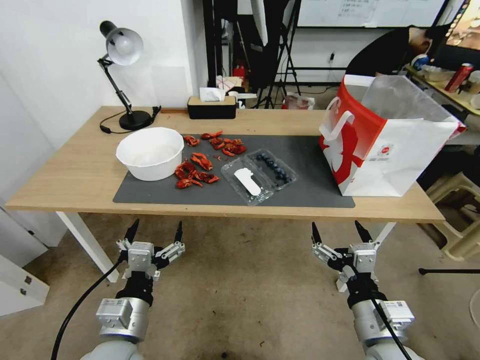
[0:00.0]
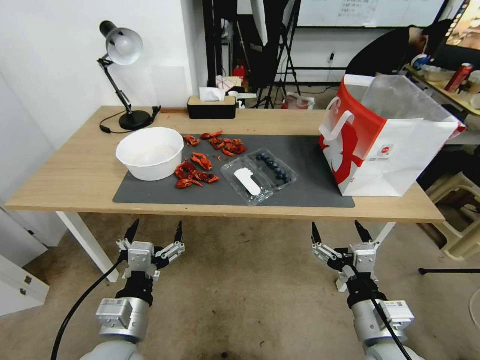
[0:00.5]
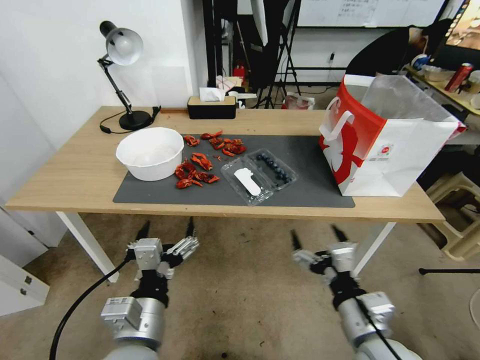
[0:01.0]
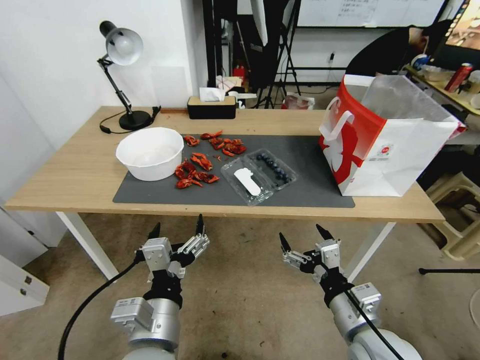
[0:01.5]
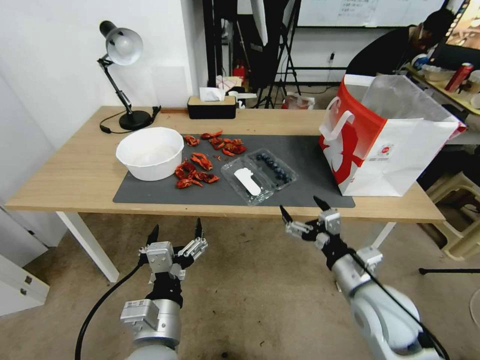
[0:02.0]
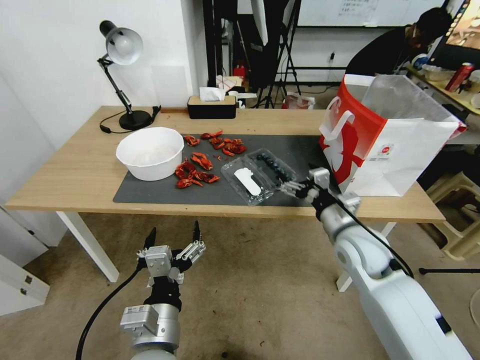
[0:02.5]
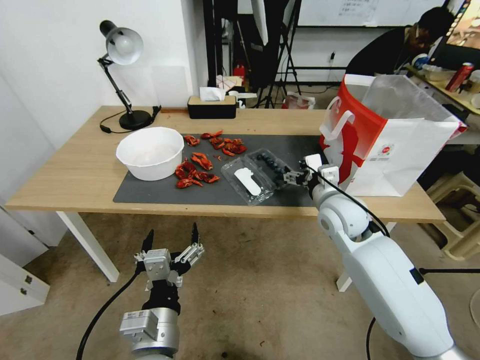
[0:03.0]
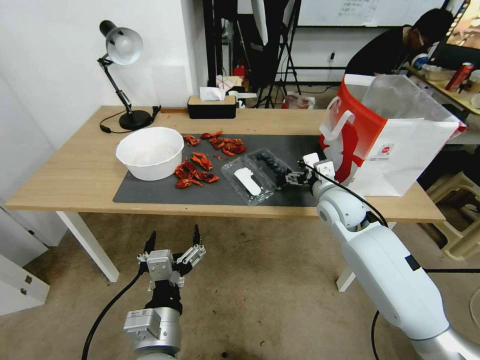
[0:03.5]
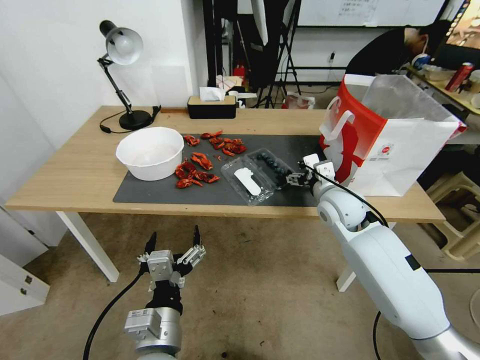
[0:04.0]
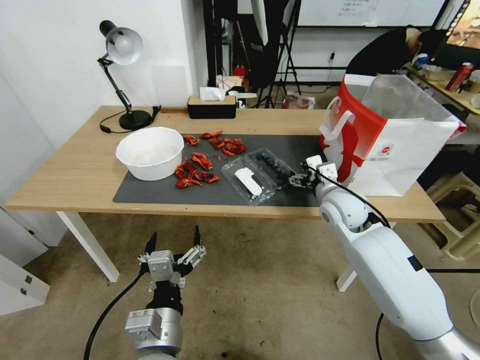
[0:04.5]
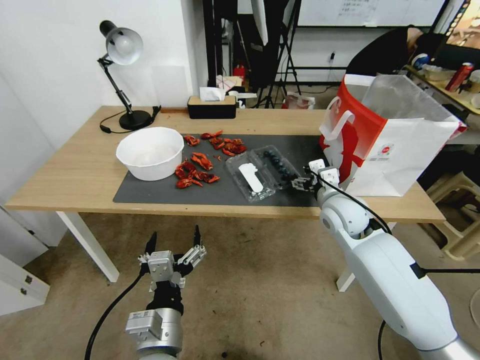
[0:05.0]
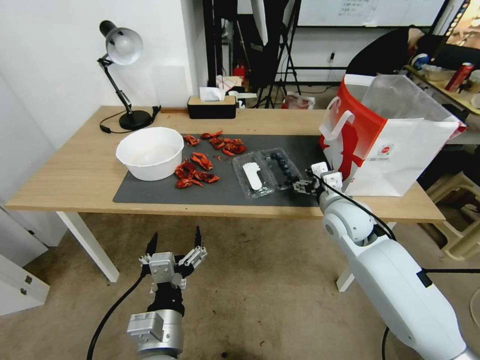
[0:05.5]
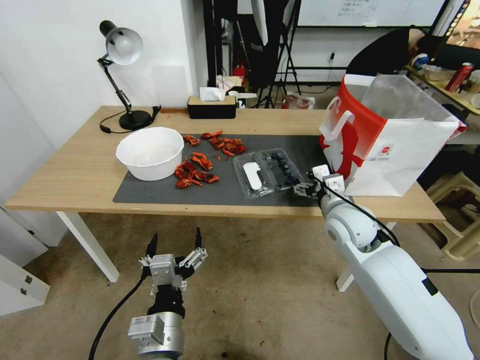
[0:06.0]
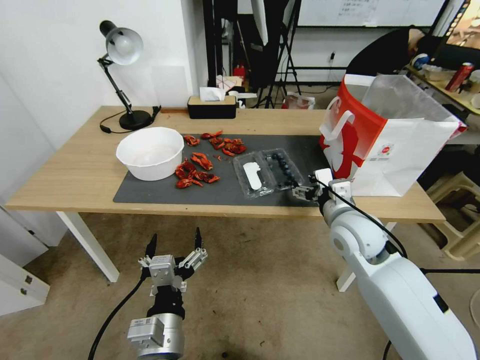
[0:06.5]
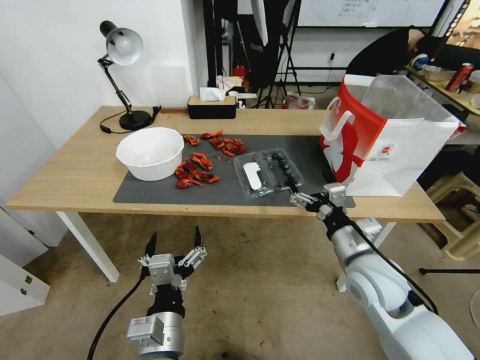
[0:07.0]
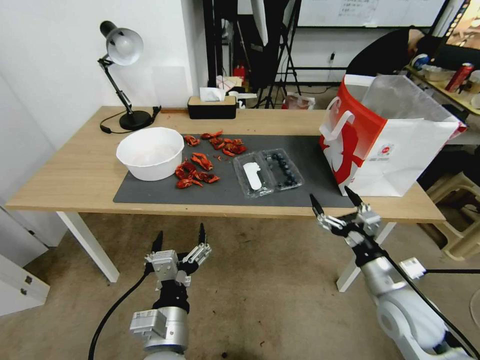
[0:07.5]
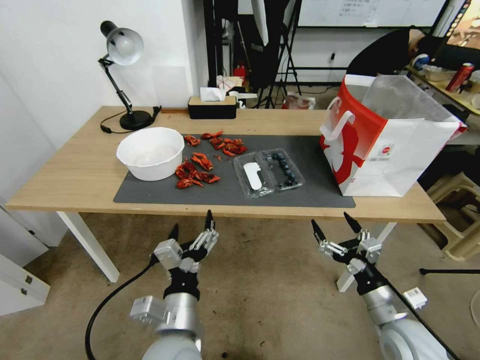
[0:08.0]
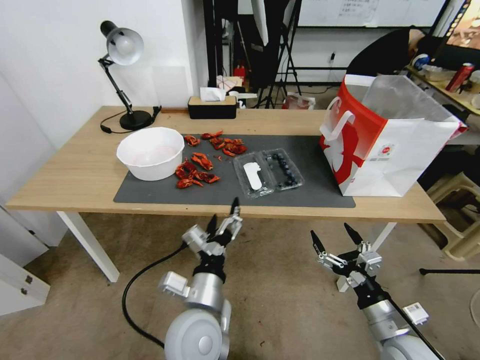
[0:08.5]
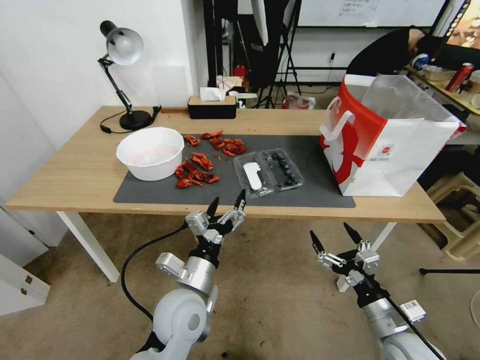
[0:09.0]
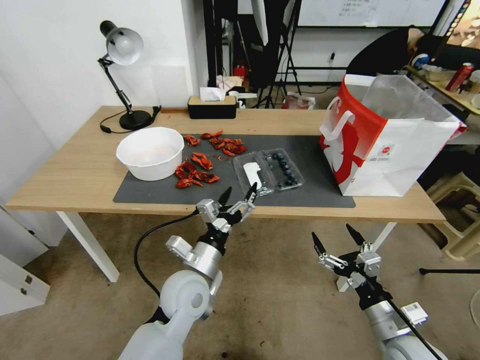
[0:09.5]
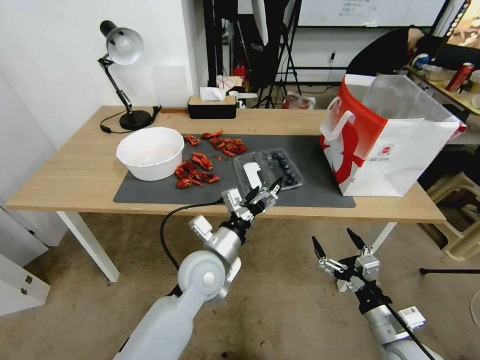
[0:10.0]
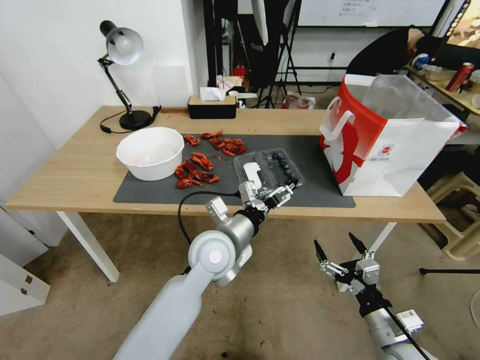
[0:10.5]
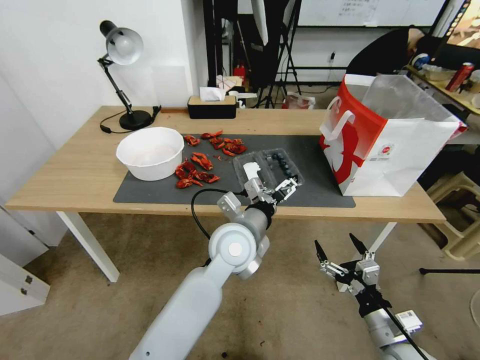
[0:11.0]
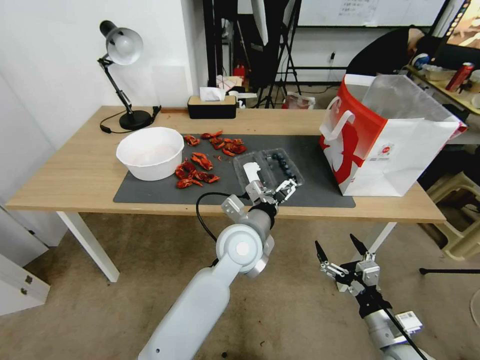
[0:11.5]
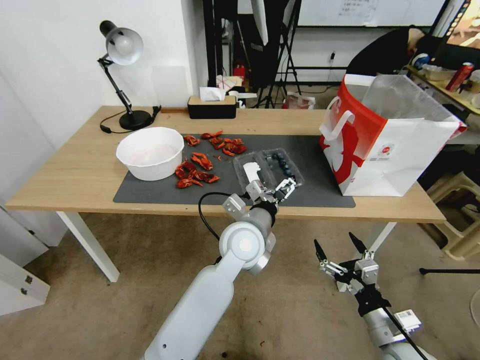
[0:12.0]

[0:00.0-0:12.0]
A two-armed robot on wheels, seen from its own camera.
Task of the whole recording: Close the takeout container lid, then place the container into the takeout bag.
0:02.0 to 0:04.0: The right gripper travels forward by roughly 20 cm.
0:04.0 to 0:06.0: The grippers stay close to where they were, moving slightly.
0:06.0 to 0:08.0: The right gripper moves backward, downward and to the right, roughly 25 cm.
0:08.0 to 0:10.0: The left gripper travels forward by about 15 cm.
0:10.0 to 0:12.0: The left gripper goes some 10 cm to the right.

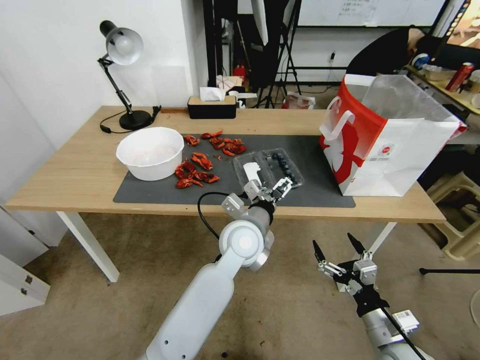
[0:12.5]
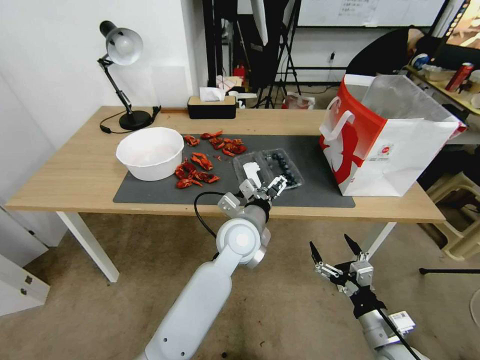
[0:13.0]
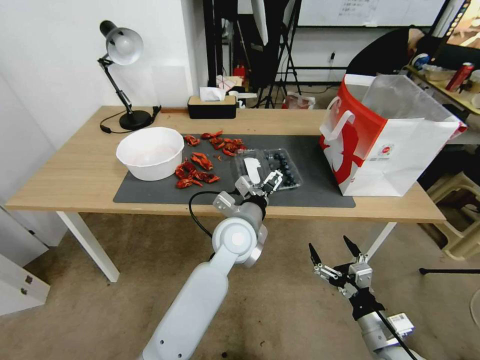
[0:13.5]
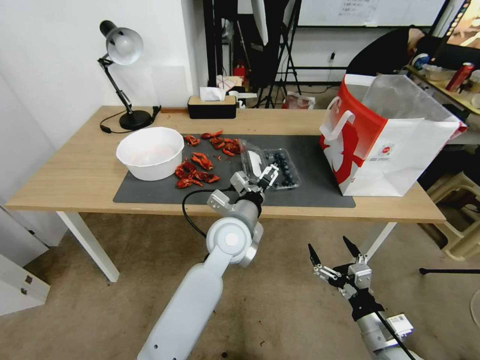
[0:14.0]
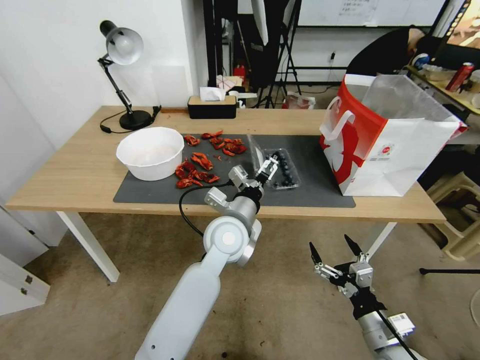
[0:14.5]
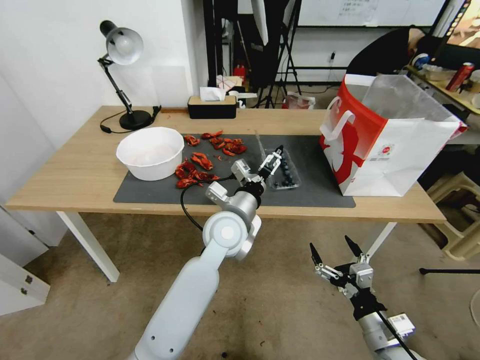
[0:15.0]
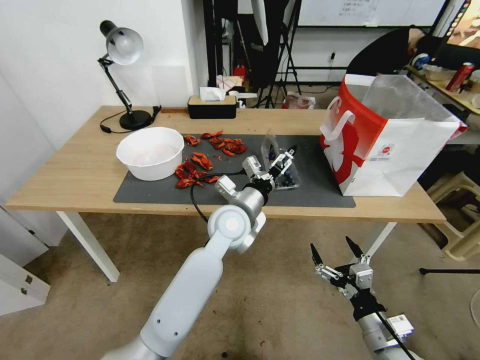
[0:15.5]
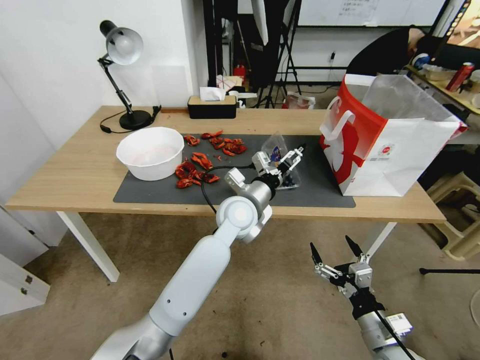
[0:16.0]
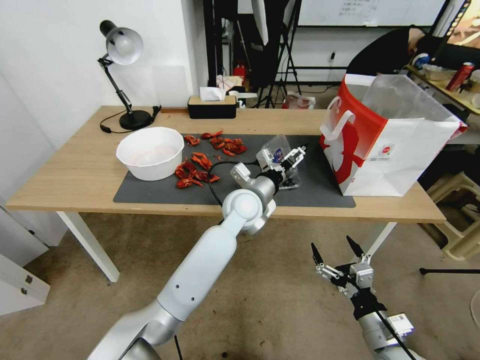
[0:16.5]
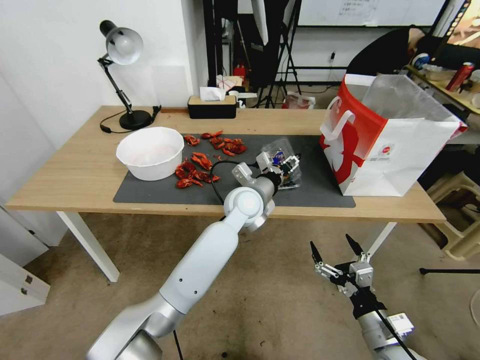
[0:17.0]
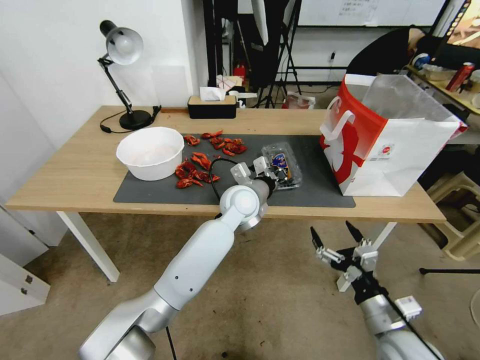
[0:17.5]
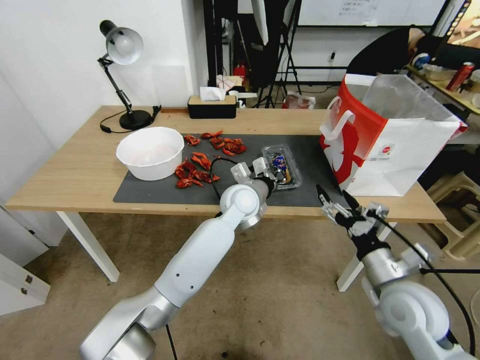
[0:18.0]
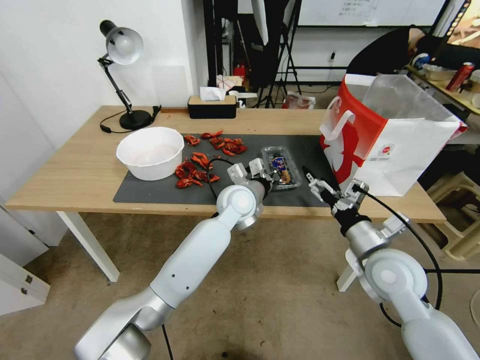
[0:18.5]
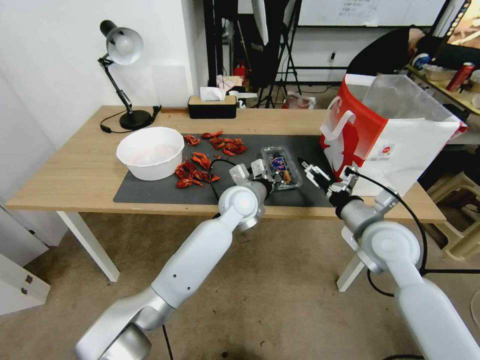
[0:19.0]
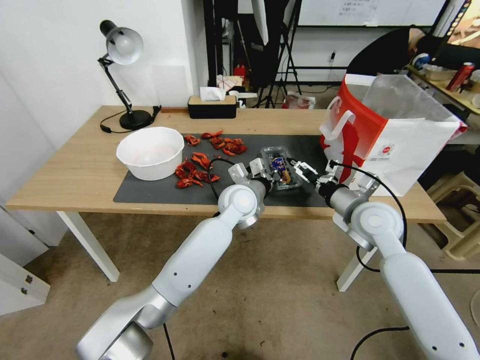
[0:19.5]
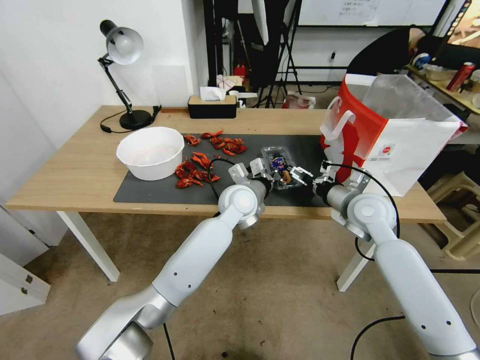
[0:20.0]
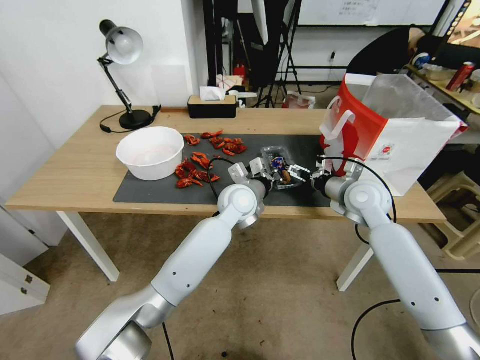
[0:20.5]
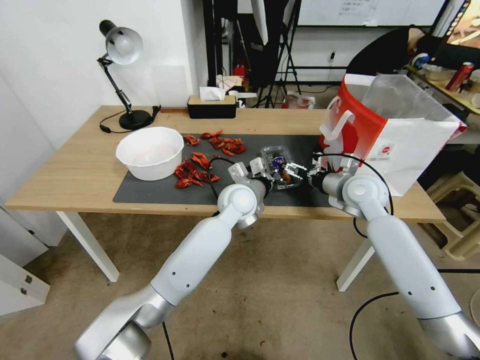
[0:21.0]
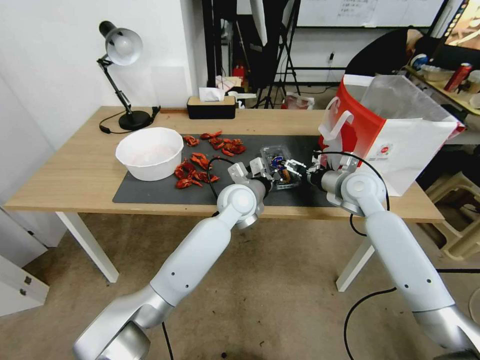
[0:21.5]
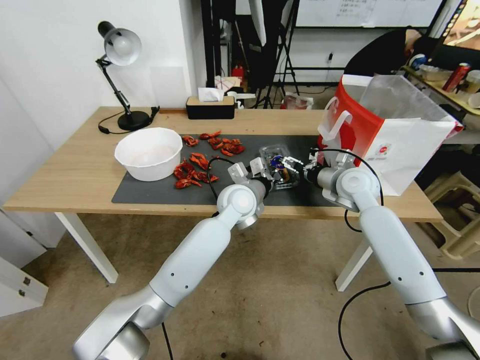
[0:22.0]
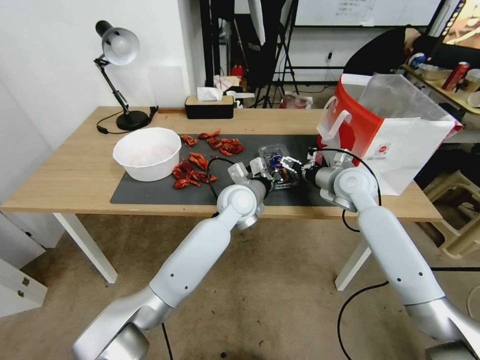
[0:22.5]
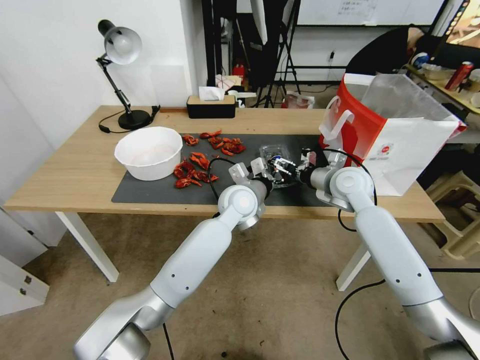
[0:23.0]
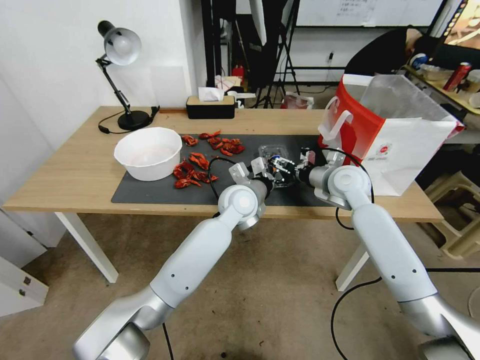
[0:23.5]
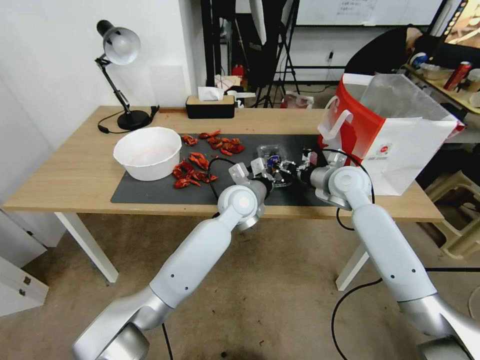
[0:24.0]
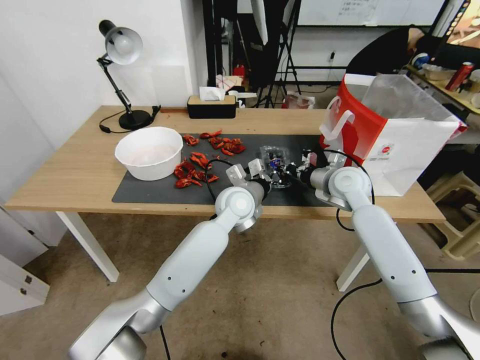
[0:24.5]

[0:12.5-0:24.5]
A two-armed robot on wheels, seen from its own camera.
Task of the whole recording: Close the takeout container lid, then place the container into the takeout bag.
0:12.5 to 0:14.5: The grippers move only a little.
0:14.5 to 0:16.5: The left gripper travels forward by roughly 10 cm.
0:16.5 to 0:18.5: The right gripper heads forward and upward, covering some 20 cm, while the left gripper closes up.
0:18.5 to 0:20.5: The right gripper goes about 15 cm forward.
0:20.5 to 0:22.5: The grippers make only small movements.
0:22.5 to 0:24.5: The right gripper closes.

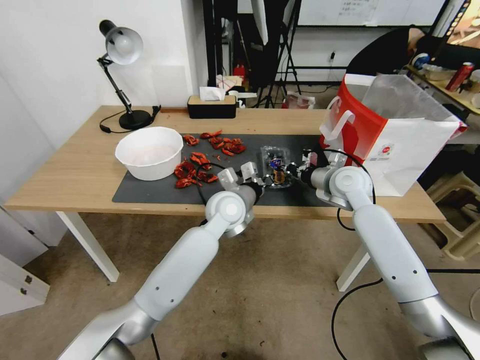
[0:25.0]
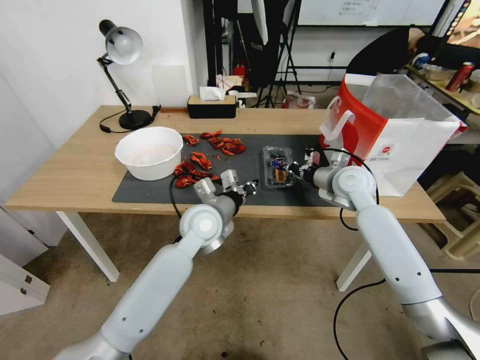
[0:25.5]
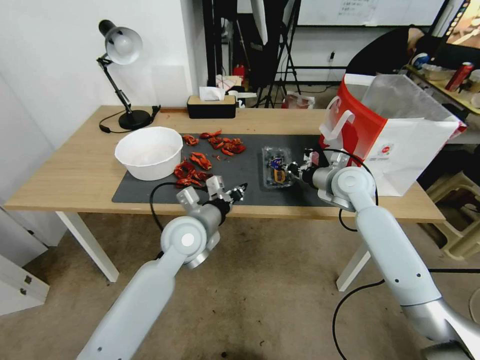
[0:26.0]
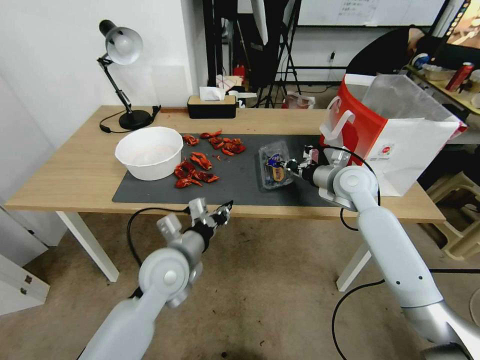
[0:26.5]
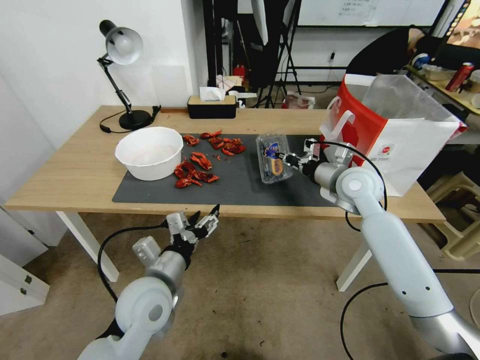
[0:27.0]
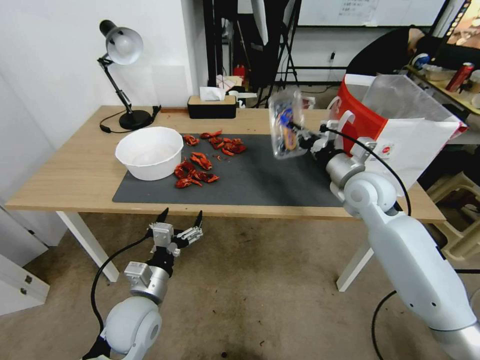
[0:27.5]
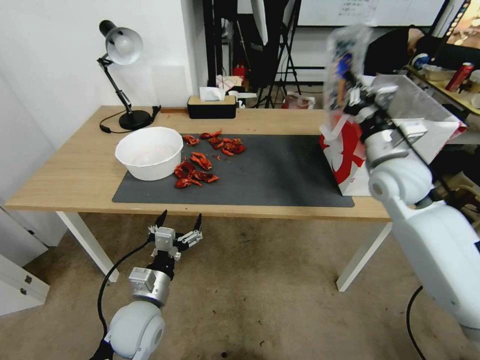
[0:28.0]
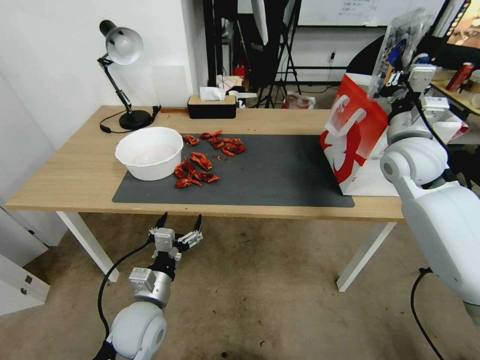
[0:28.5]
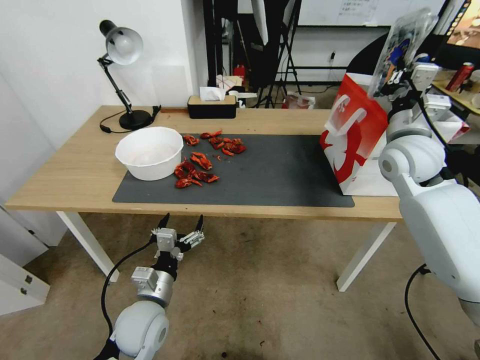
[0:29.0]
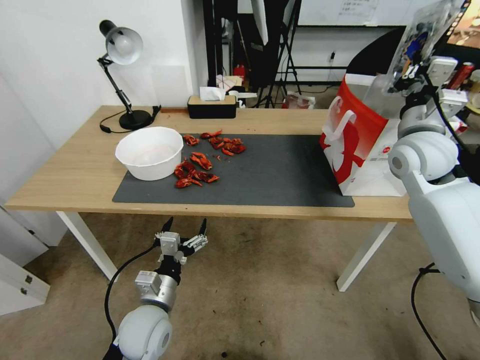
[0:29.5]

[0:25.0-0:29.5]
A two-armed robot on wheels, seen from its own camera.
Task of the whole recording: Close the takeout container lid, then place the container into the takeout bag.
0:25.0 to 0:27.0: The left gripper travels backward and to the left by about 25 cm, and opens.
0:27.0 to 0:29.5: The right gripper is displaced upward and to the right by roughly 15 cm; the left gripper shifts about 10 cm downward.
